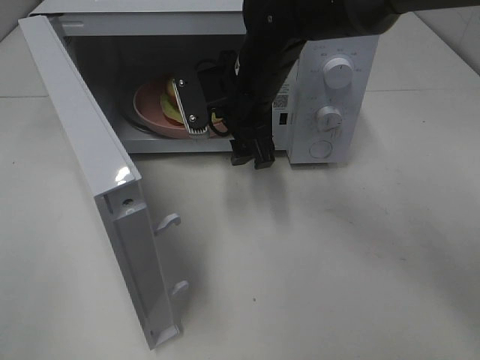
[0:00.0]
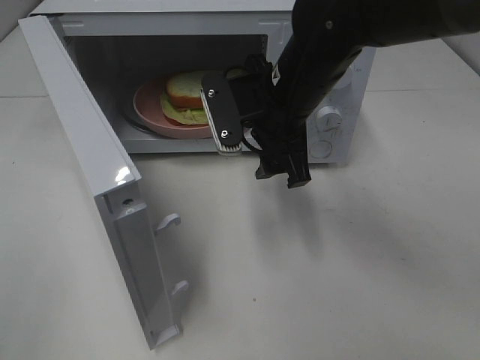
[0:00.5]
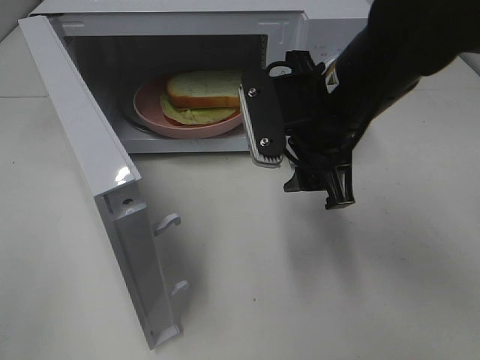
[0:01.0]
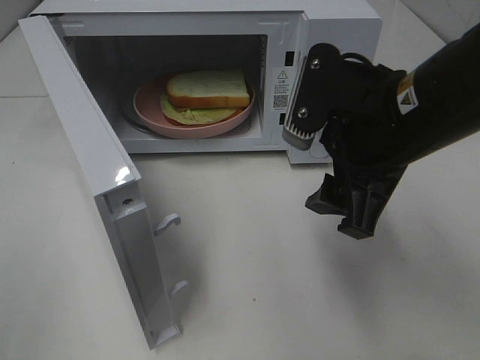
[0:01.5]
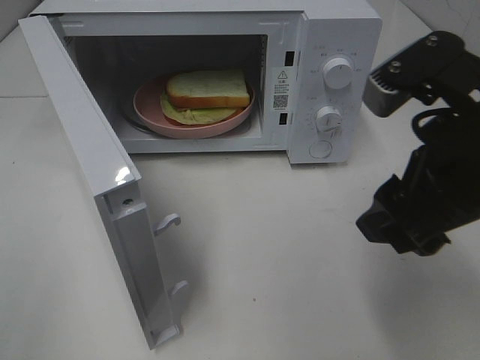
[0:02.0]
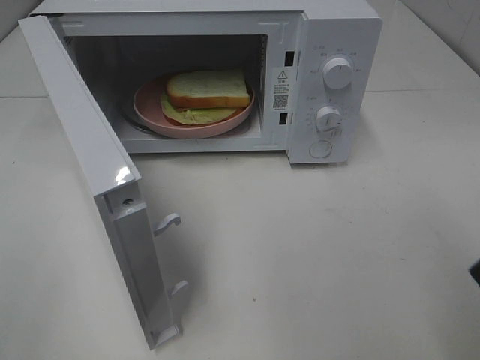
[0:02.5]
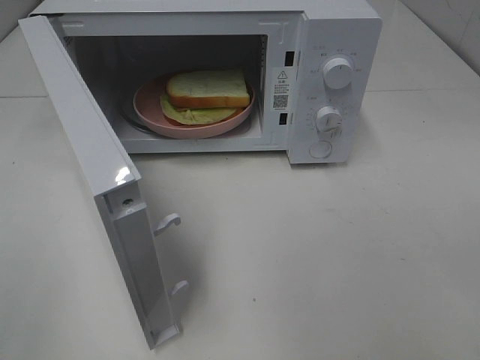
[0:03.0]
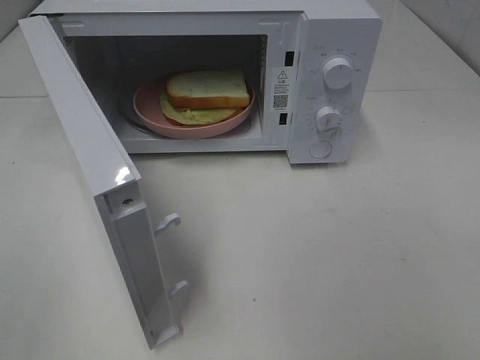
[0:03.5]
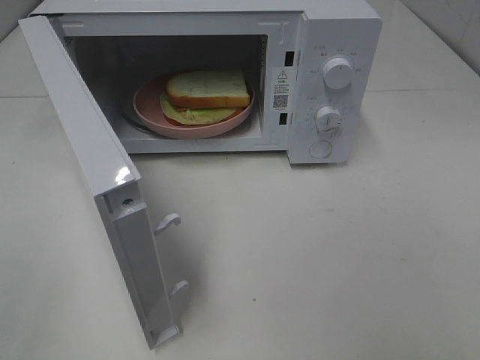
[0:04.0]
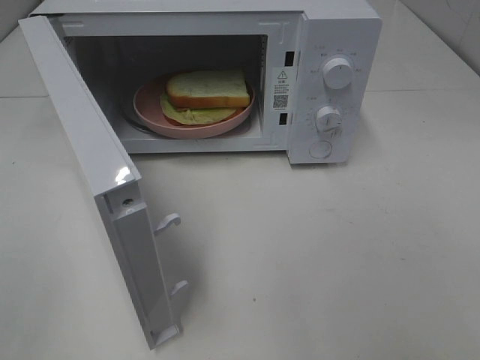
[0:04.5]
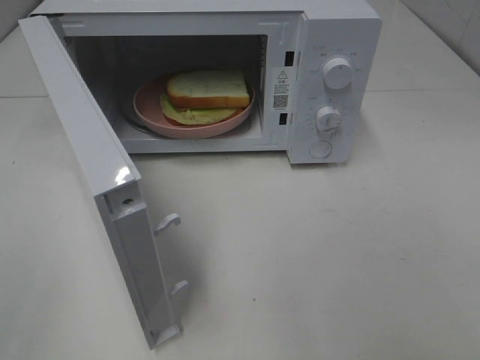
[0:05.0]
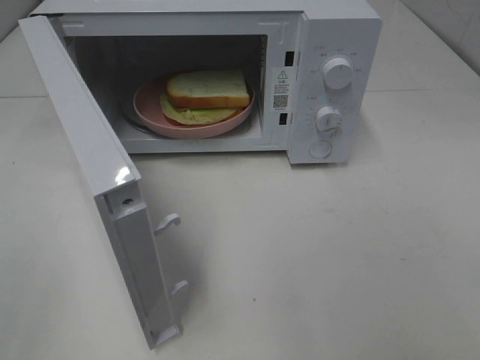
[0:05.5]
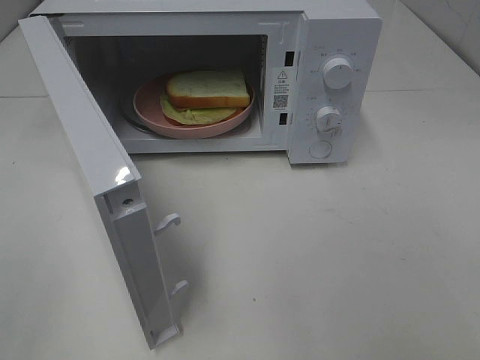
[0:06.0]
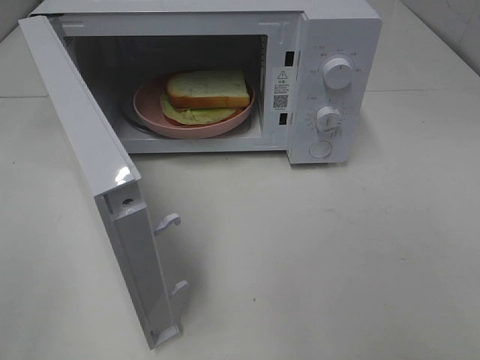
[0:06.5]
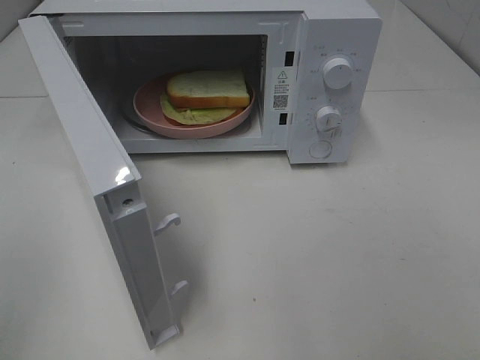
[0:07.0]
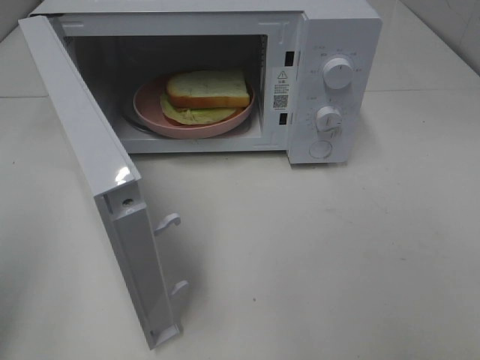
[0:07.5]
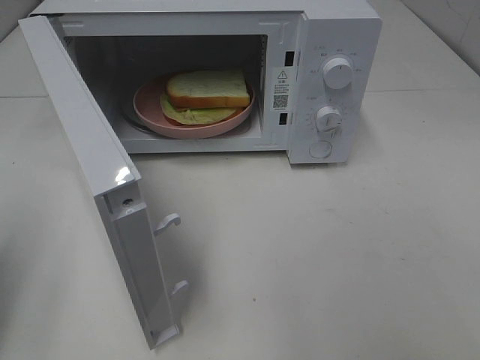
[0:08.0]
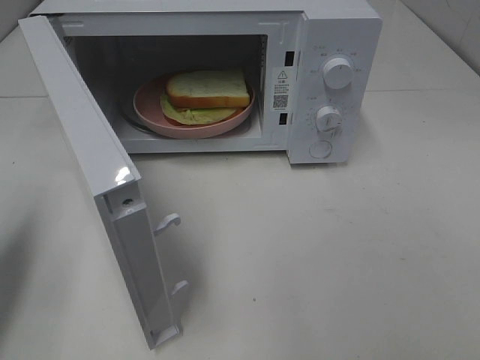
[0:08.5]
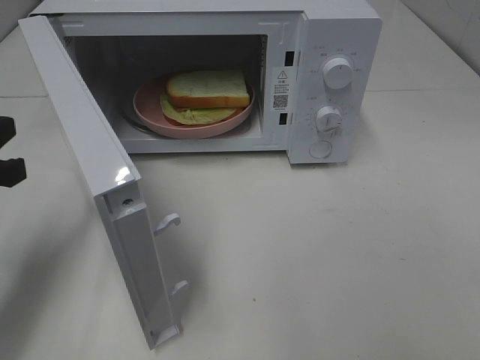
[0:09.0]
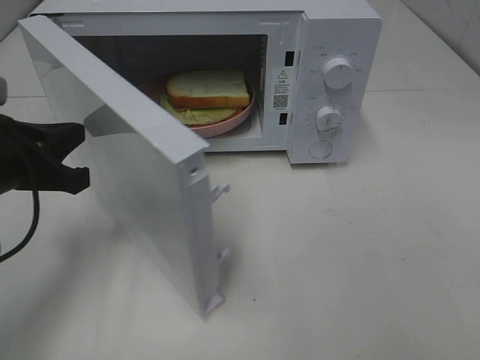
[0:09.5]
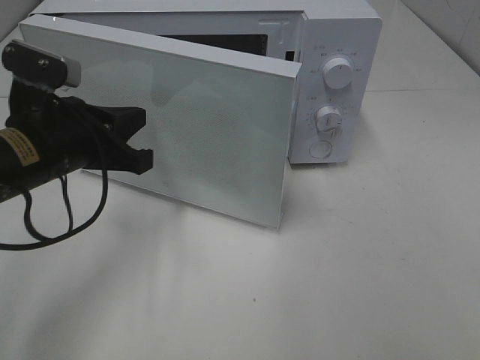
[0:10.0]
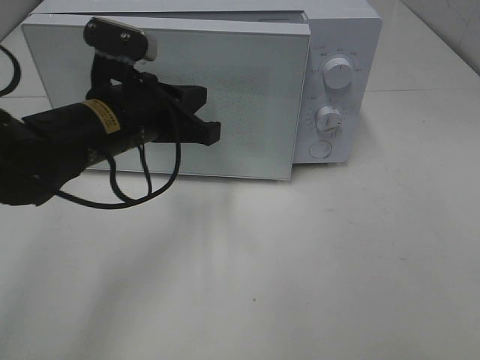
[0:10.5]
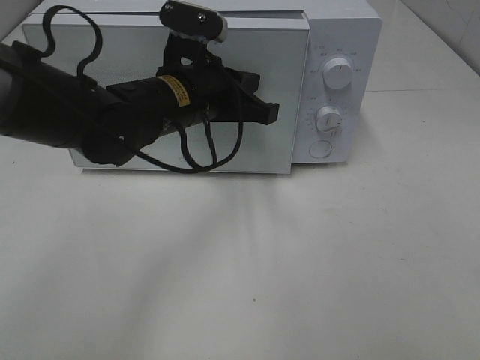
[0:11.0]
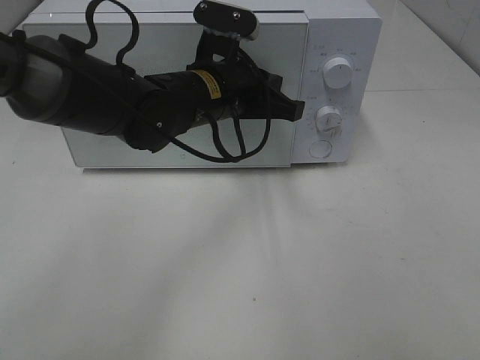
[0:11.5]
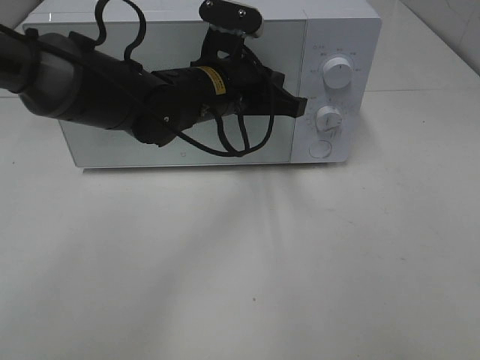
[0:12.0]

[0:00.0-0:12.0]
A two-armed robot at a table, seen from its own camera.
Task of the whole recording: Heat Sandwich.
Step, 0:00.0 to 0:12.0: Left hand: close the microwave door.
0:00.0 to 0:02.0: The right gripper moves backward and to the right, some 25 cm.
0:02.0 to 0:04.0: The right gripper travels backward and to the right by some 20 cm.
0:06.0 to 0:08.0: The left gripper is displaced forward by some 15 cm, and closes its fingers.
0:08.0 to 0:10.0: The left gripper goes about 20 cm to the right, forward and downward.
0:10.0 to 0:12.0: The left gripper travels to the right and forward by approximately 20 cm.

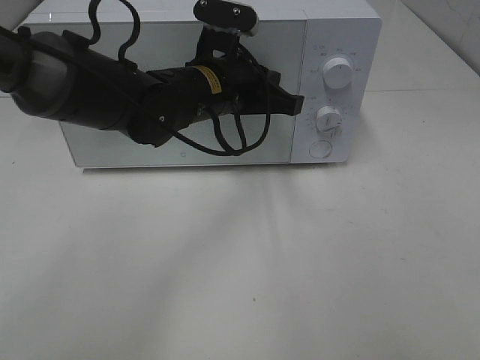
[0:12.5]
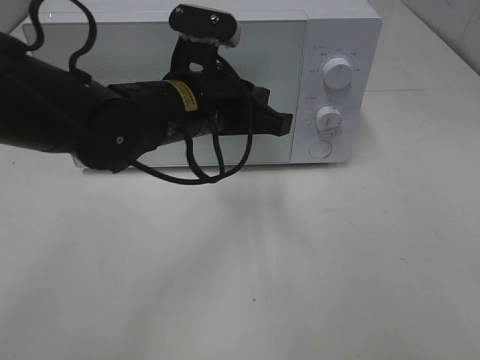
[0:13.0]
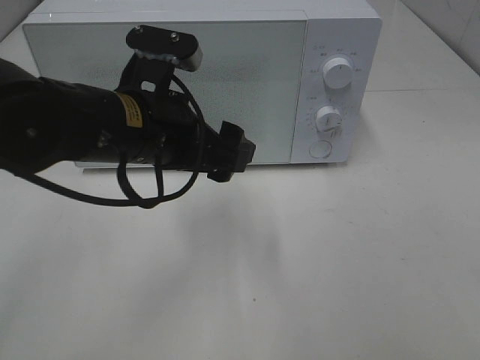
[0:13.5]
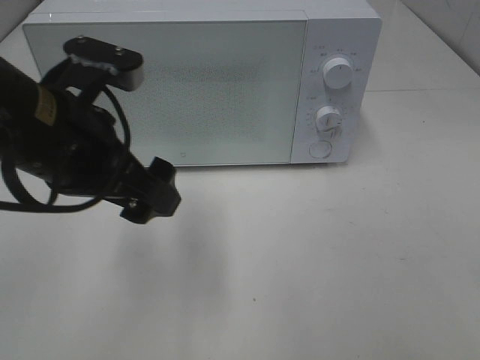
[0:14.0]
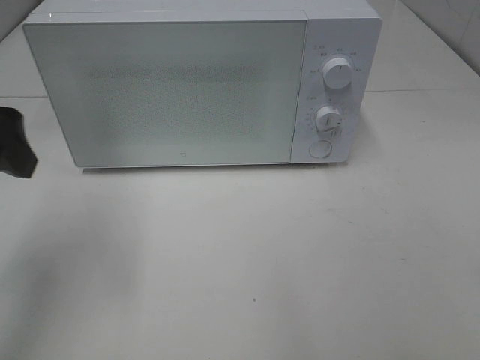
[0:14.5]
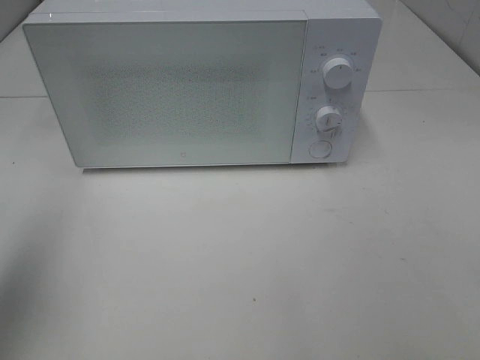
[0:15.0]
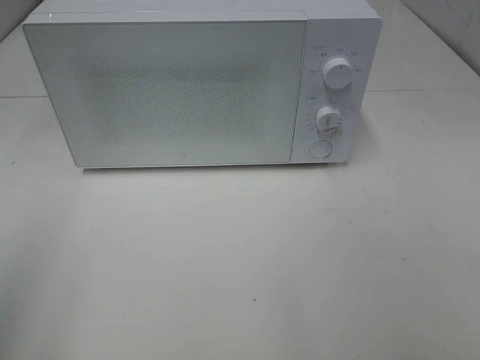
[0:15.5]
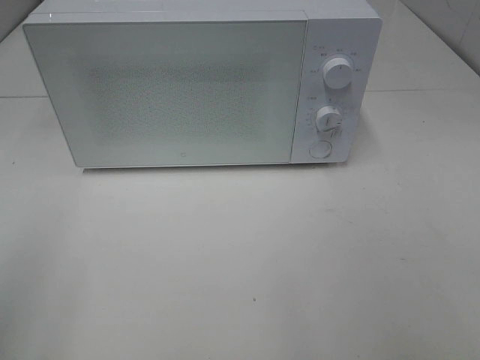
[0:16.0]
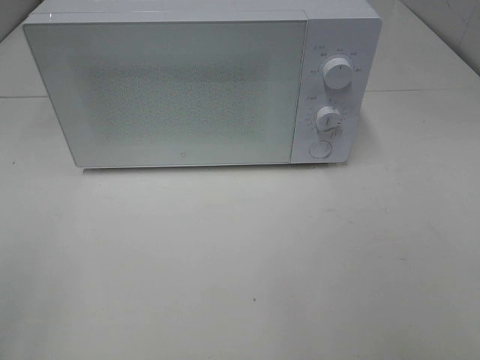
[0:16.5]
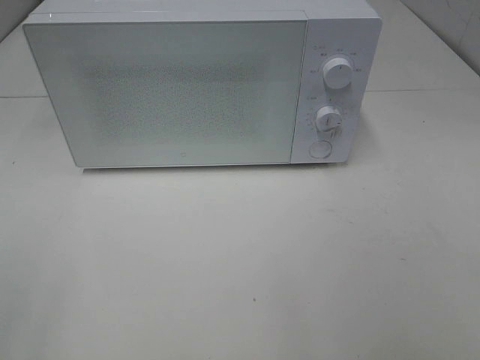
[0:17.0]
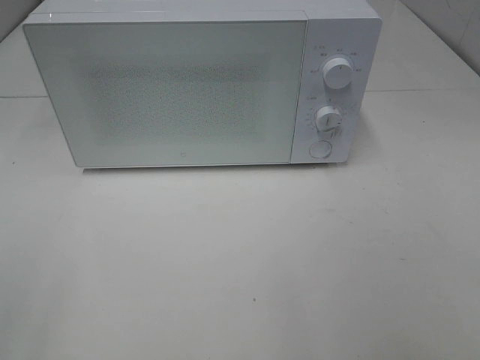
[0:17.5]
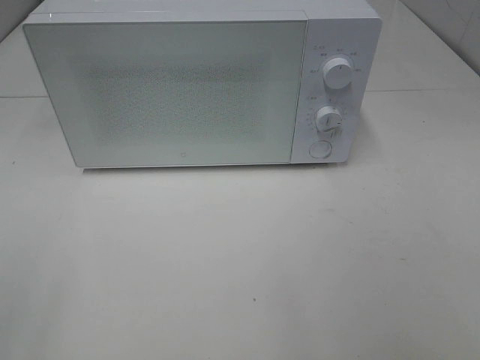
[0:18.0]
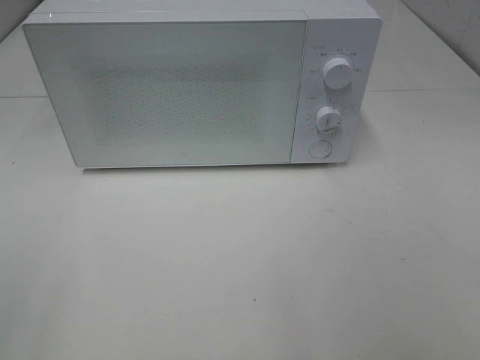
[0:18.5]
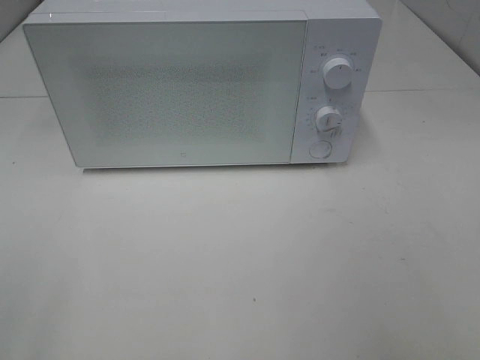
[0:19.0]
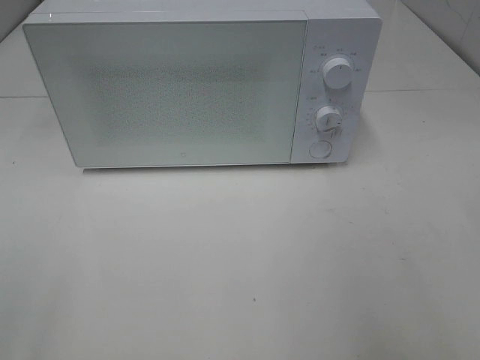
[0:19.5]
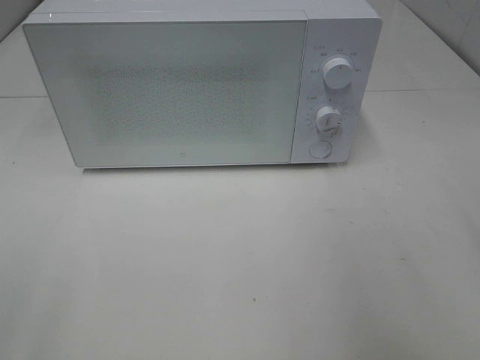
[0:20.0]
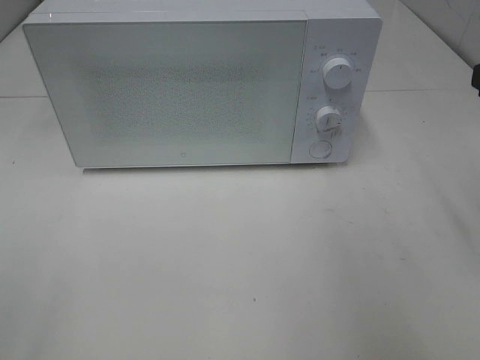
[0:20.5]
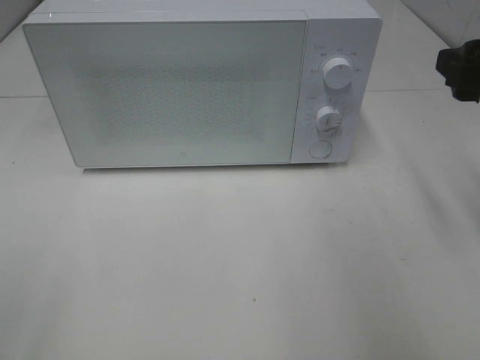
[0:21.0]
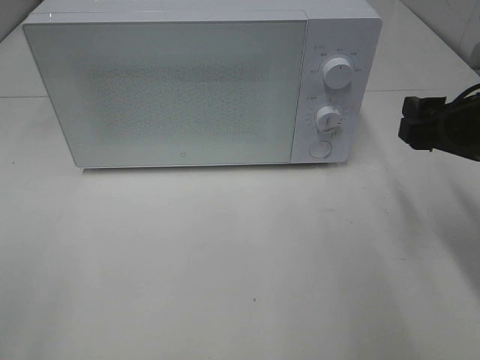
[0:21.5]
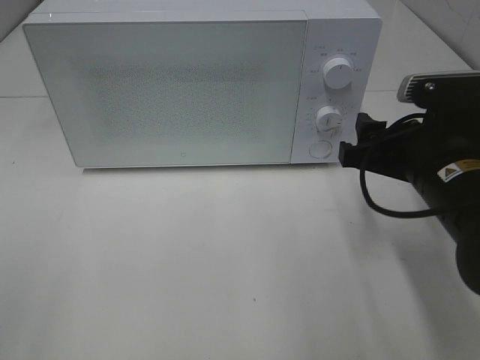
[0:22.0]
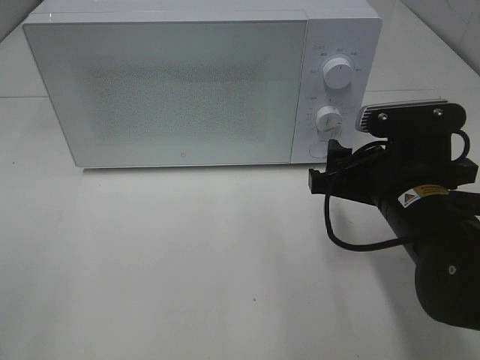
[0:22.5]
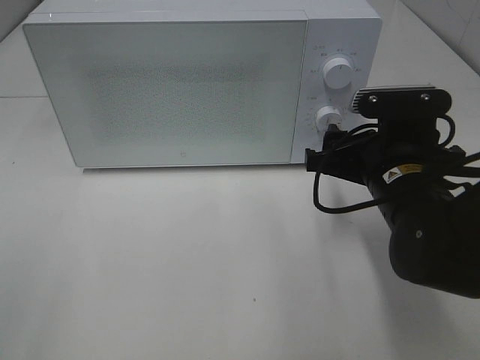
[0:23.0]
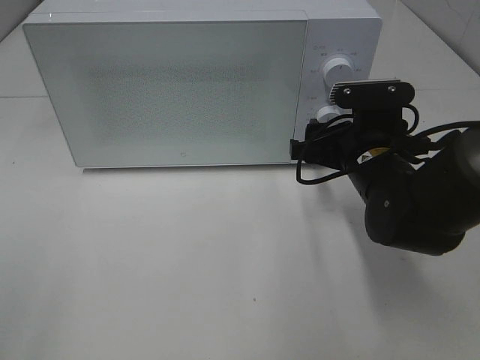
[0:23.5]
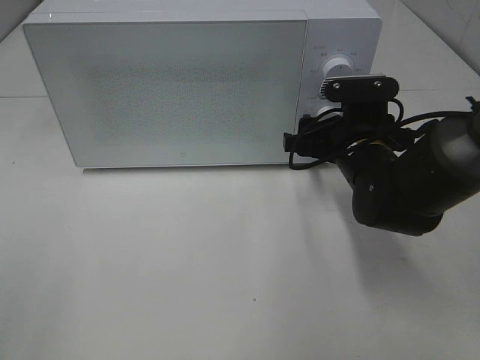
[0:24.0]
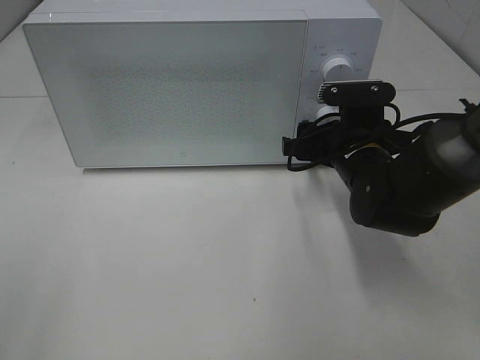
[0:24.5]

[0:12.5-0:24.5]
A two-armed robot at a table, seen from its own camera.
Task of the whole recording: Heat Sandwich.
0:12.5 to 0:14.5: The left gripper is displaced to the left, backward and upward by roughly 30 cm, and opens its fingers.
0:14.5 to 0:16.5: The left gripper moves backward, some 20 cm.
0:20.5 to 0:22.5: The right gripper moves downward and to the left, roughly 20 cm.
0:22.5 to 0:24.5: The right gripper shifts roughly 10 cm forward.

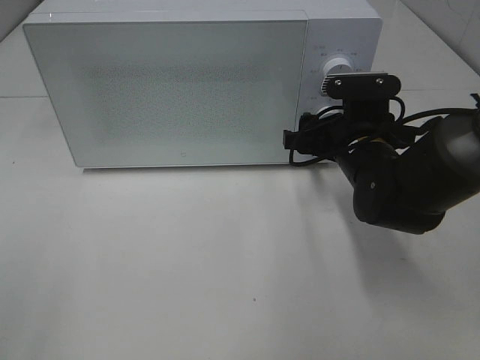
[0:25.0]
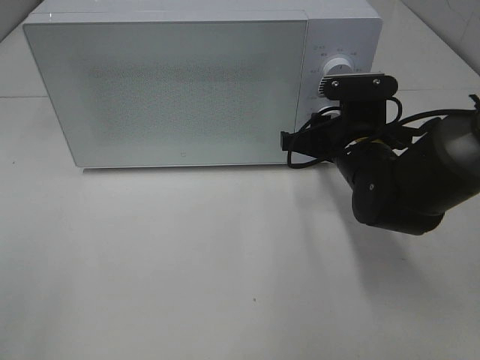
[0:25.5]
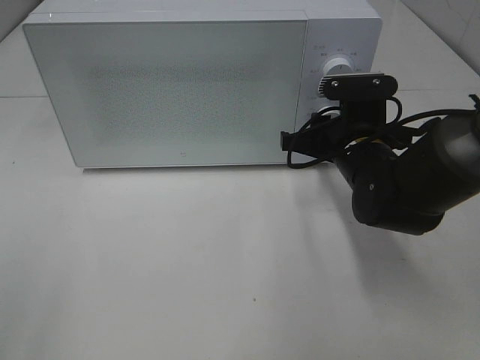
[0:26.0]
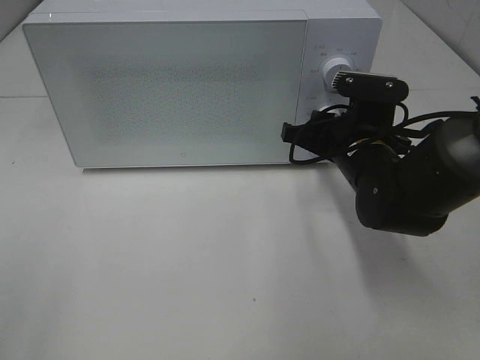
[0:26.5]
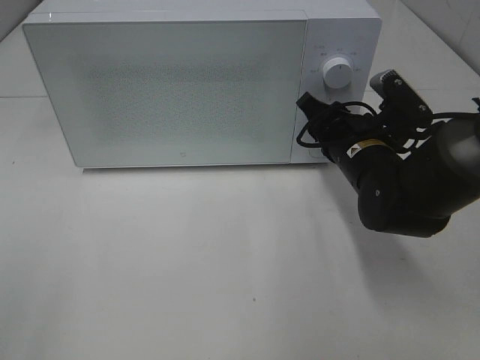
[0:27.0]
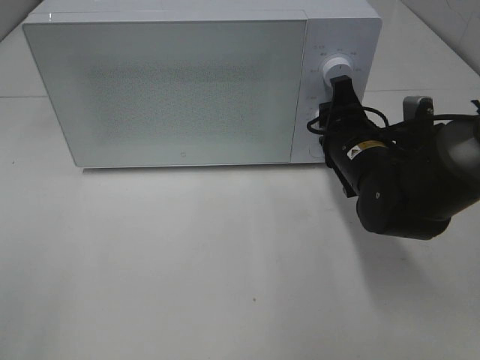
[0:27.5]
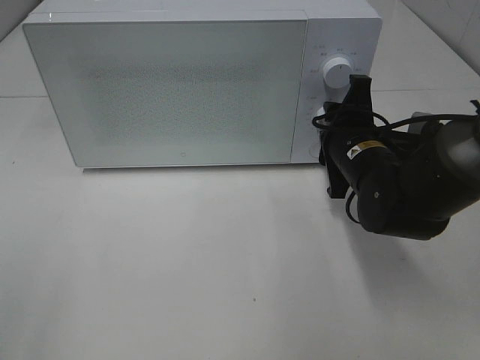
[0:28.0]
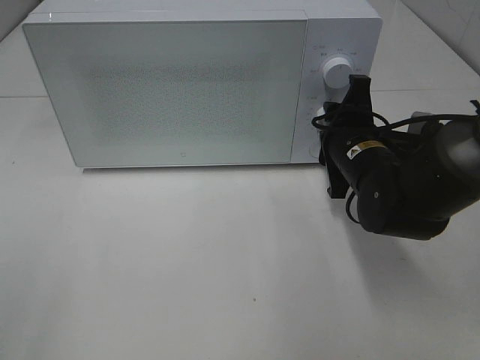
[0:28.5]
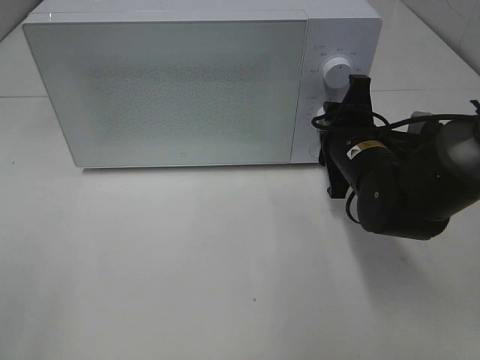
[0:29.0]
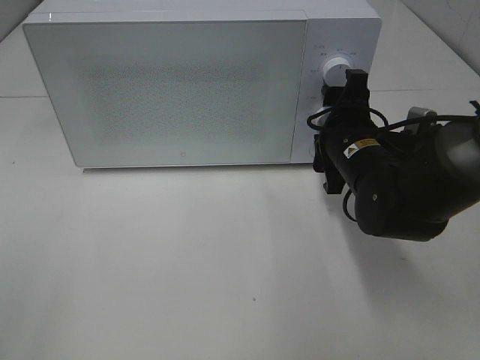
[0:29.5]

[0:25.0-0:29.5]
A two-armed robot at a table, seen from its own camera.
Task of the whole recording: Heat Sandwich.
Step, 0:25.0 to 0:29.5: Right hand: twist timer button.
0:25.0 to 0:27.0: The right gripper closes up.
0:27.0 to 0:29.5: The right gripper opens its fingers.
